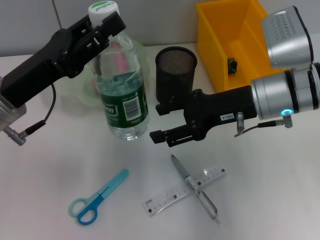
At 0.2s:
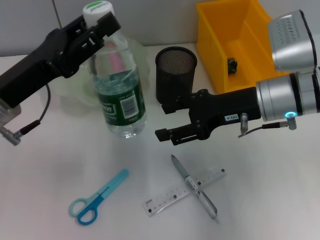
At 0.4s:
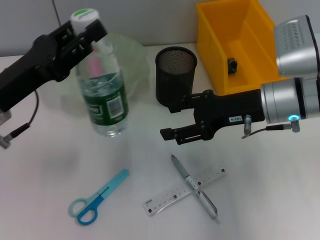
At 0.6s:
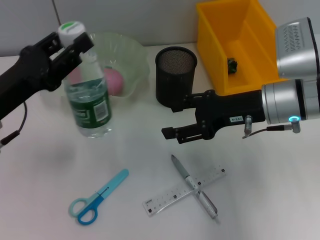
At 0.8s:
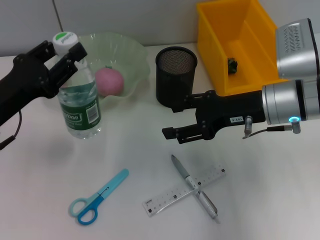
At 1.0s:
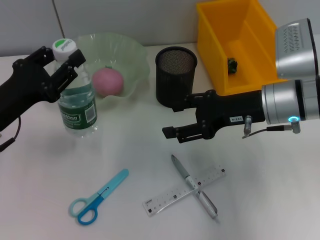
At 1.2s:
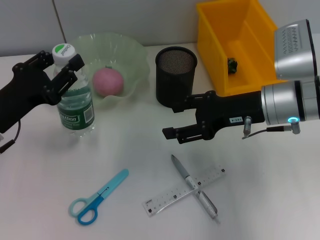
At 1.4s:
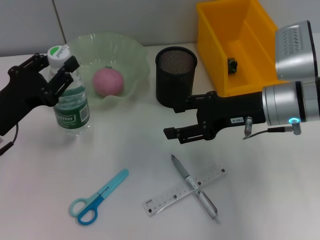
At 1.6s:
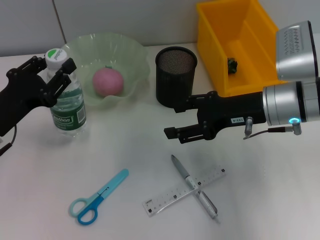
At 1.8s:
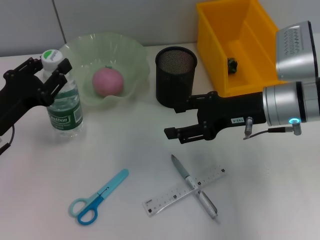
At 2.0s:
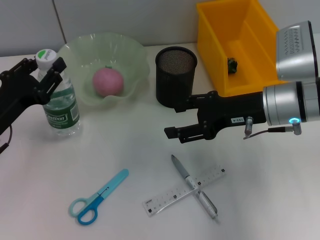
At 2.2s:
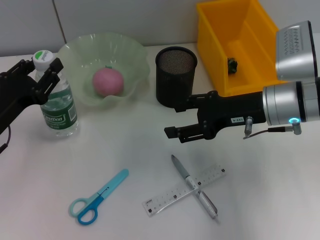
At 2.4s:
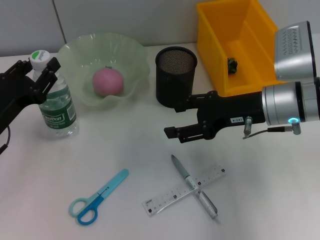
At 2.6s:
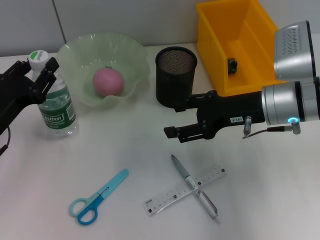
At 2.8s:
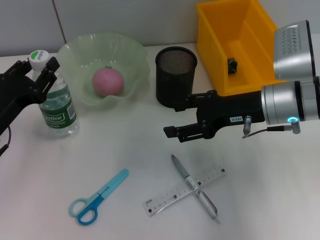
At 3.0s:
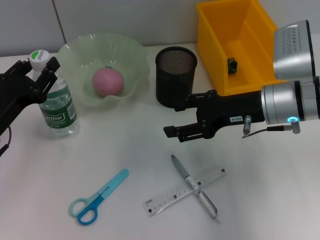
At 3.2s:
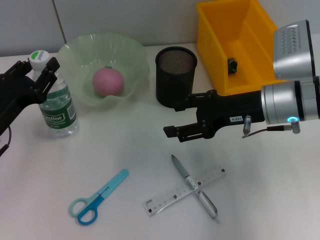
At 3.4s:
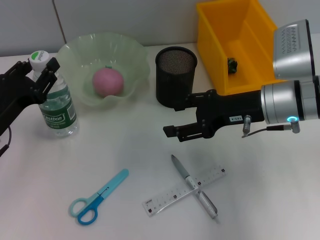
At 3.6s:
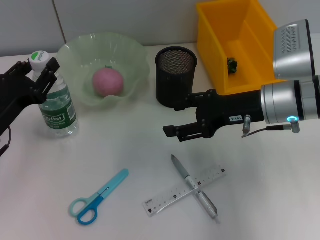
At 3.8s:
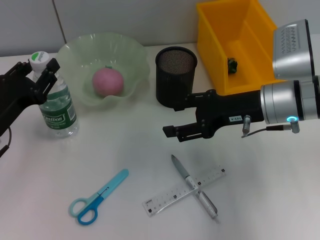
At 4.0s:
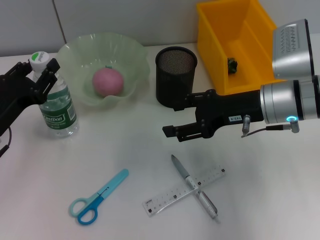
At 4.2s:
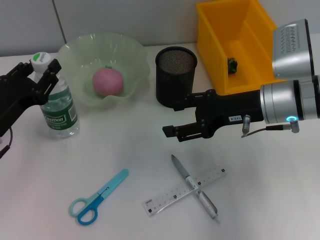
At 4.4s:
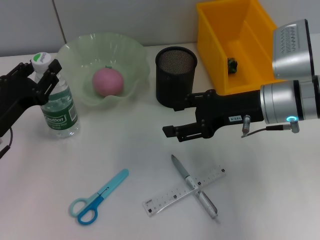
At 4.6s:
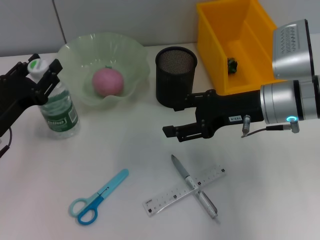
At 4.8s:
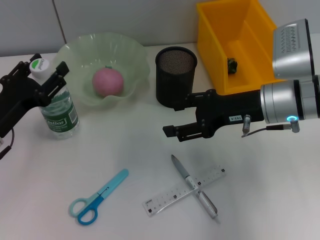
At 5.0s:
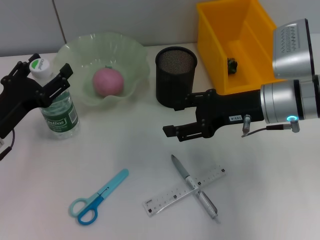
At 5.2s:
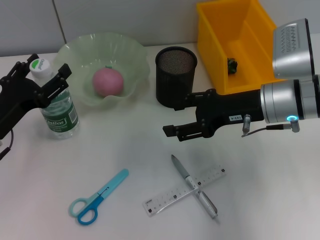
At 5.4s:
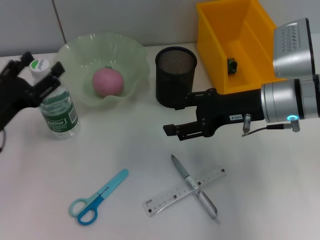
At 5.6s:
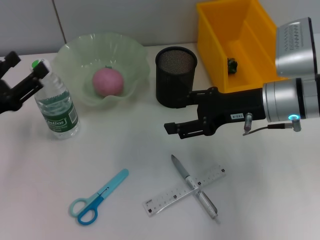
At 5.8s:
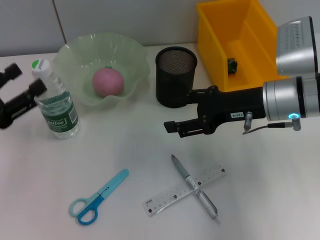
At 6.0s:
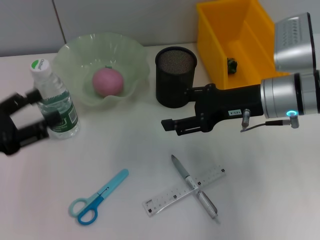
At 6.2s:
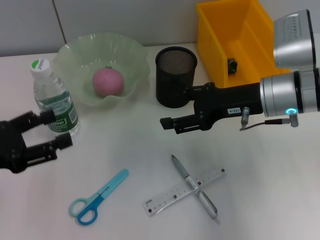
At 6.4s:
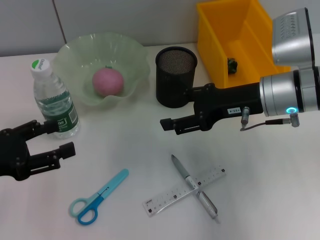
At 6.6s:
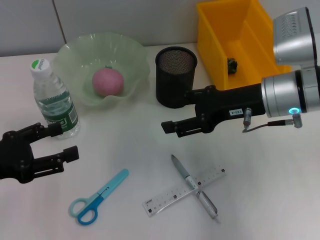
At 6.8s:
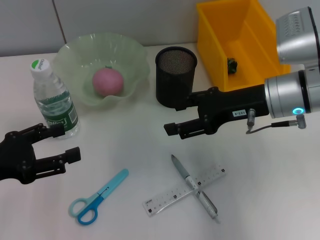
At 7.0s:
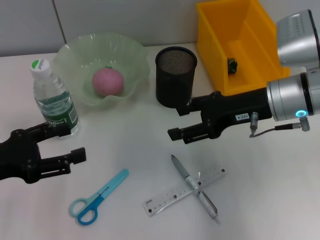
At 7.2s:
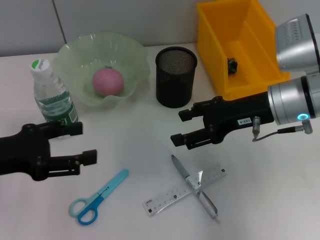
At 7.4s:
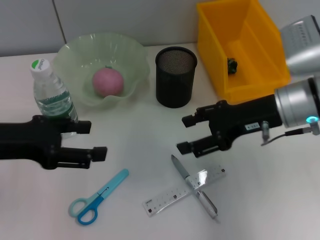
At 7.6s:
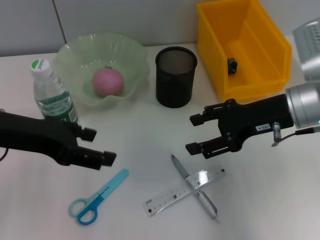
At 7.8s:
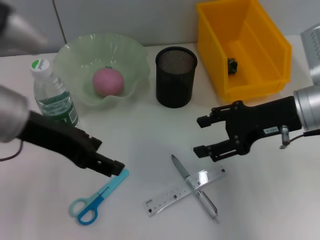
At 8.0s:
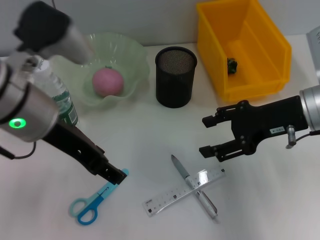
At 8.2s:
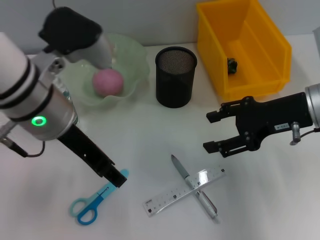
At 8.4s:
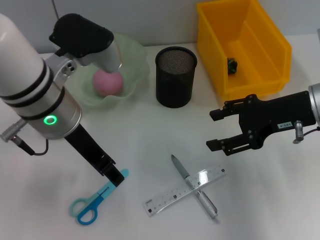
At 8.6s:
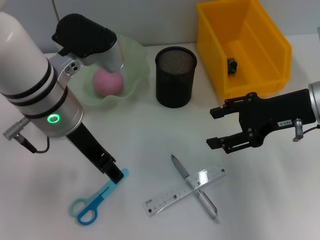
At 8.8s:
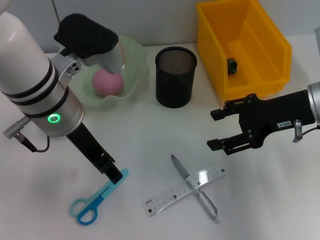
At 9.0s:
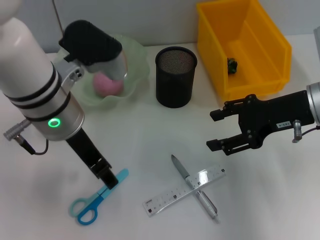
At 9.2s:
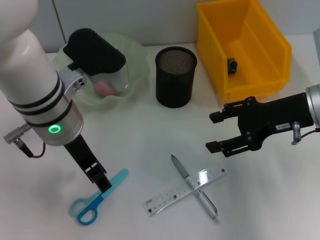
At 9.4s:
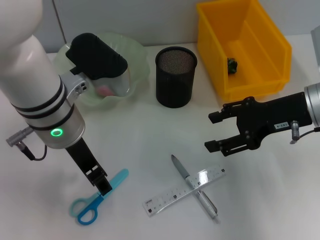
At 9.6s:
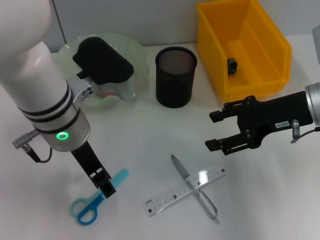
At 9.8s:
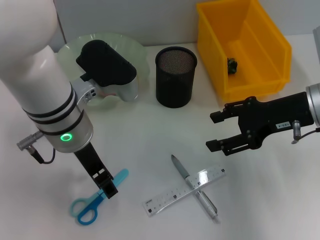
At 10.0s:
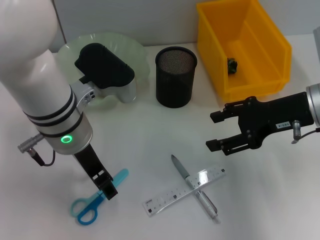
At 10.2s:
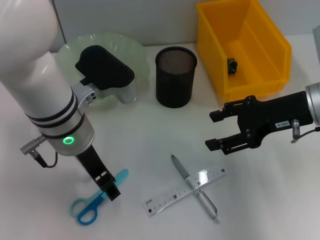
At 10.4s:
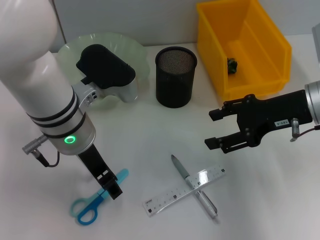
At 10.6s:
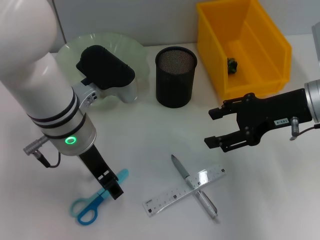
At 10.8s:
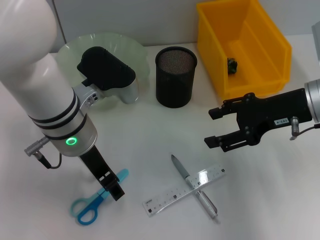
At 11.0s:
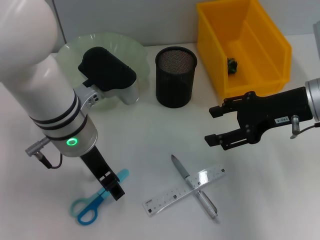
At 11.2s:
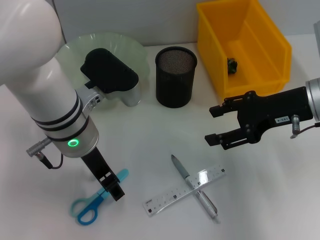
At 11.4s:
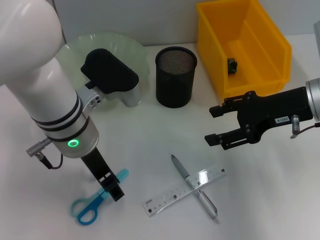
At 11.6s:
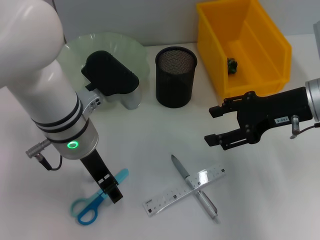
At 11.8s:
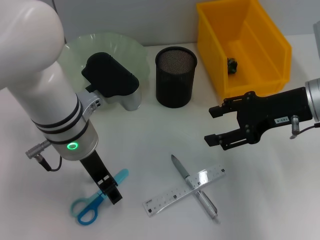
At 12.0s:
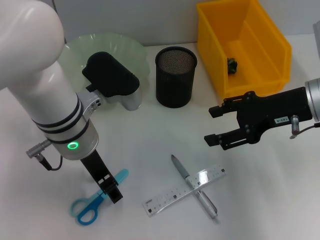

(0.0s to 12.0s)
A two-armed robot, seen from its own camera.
Step, 0.0s - 5.0s: Place the water bottle on the table with the left hand.
0.0s - 1.6s: The left gripper is displaced downward and to the left by roughly 10 cm.
1.6s - 3.0s: The grippers make only small movements.
3.0s - 4.4s: Neither gripper changes place.
4.4s - 6.0s: The left gripper is displaced backward and upward by roughly 5 cm, and opens its fingers.
6.0s - 7.6s: The left gripper is displaced upward and to the right by roughly 15 cm.
7.6s - 9.0s: The left gripper travels to the right by some 10 cm.
9.0s - 10.4s: There are only small adjustments of the grippers.
10.4s - 12.0s: Both grippers stay about where they are.

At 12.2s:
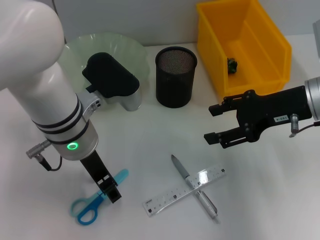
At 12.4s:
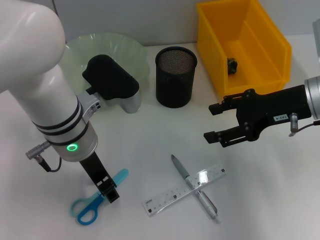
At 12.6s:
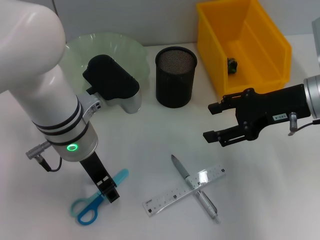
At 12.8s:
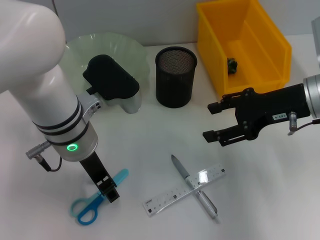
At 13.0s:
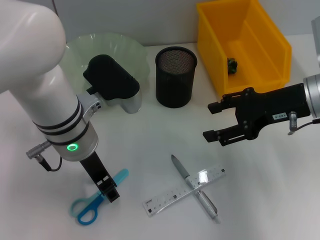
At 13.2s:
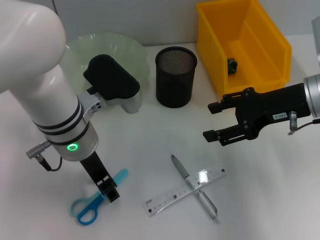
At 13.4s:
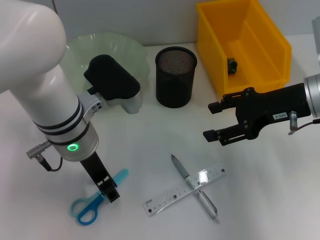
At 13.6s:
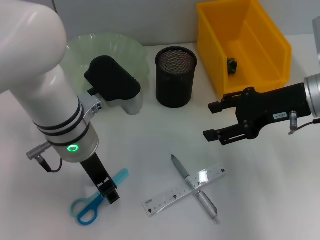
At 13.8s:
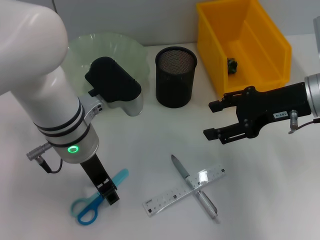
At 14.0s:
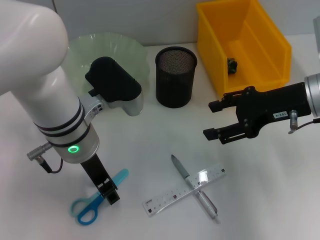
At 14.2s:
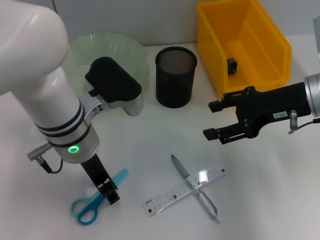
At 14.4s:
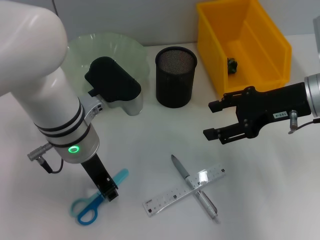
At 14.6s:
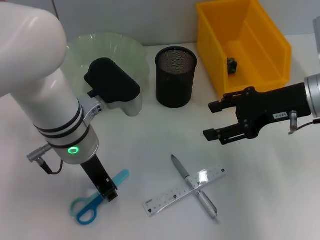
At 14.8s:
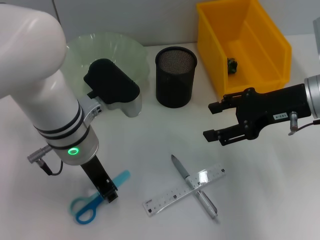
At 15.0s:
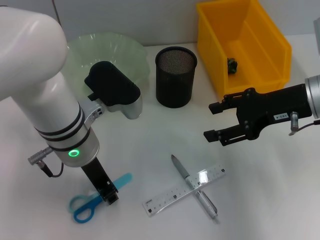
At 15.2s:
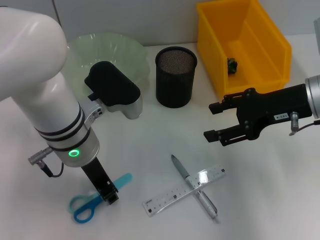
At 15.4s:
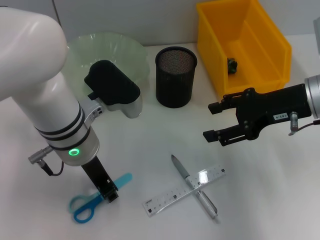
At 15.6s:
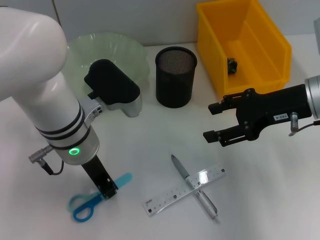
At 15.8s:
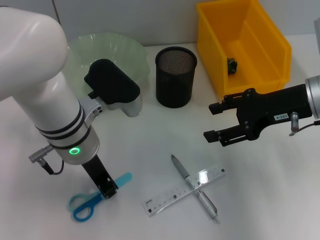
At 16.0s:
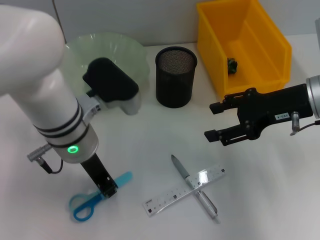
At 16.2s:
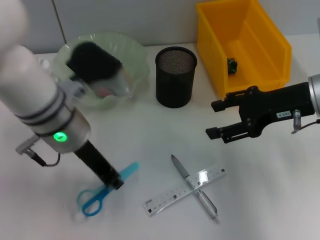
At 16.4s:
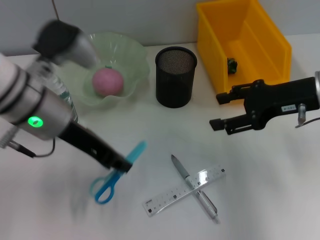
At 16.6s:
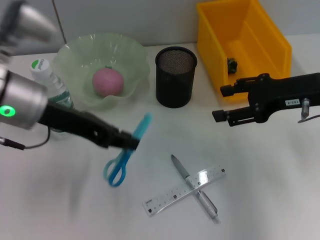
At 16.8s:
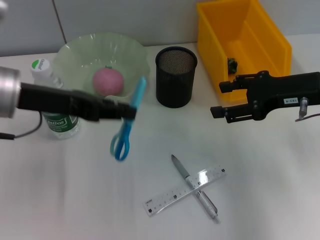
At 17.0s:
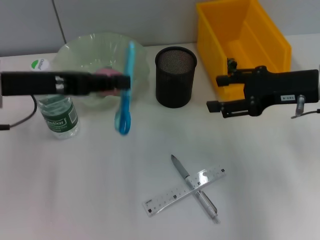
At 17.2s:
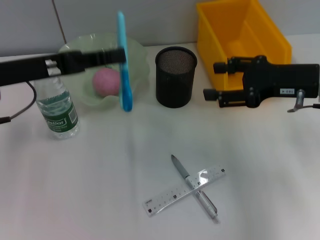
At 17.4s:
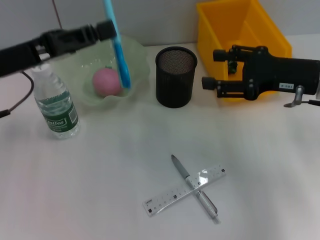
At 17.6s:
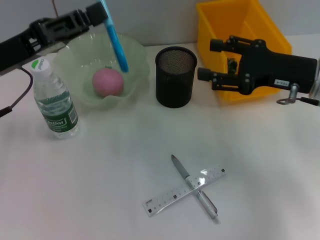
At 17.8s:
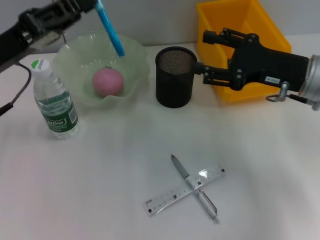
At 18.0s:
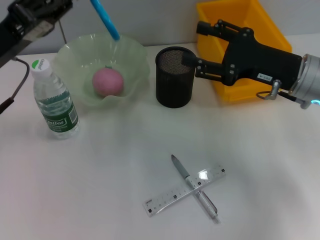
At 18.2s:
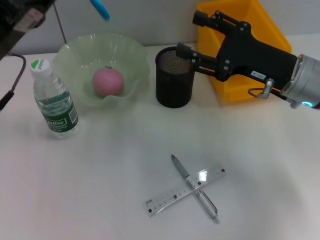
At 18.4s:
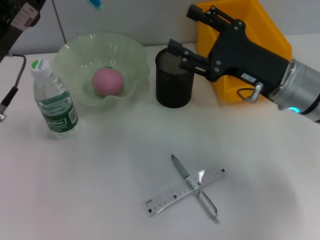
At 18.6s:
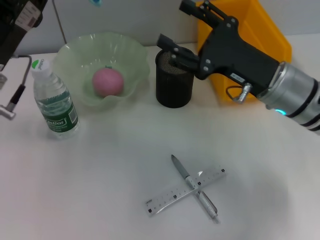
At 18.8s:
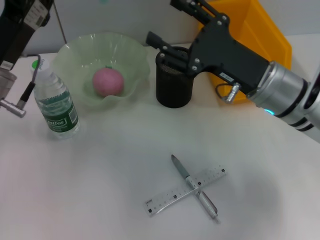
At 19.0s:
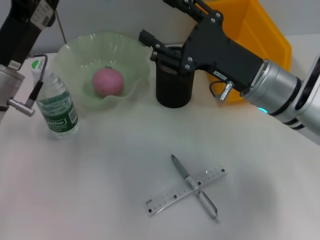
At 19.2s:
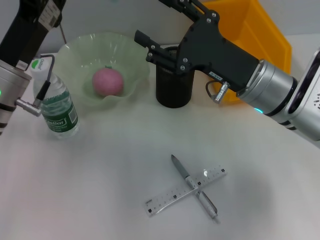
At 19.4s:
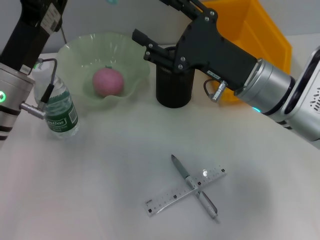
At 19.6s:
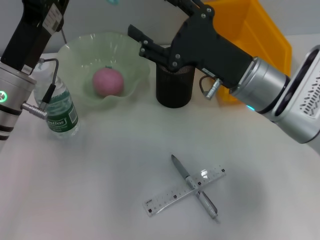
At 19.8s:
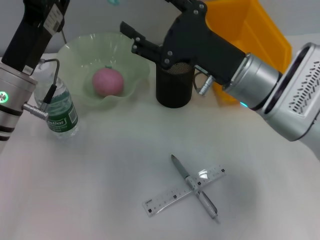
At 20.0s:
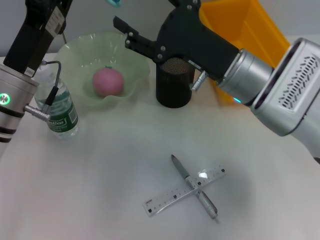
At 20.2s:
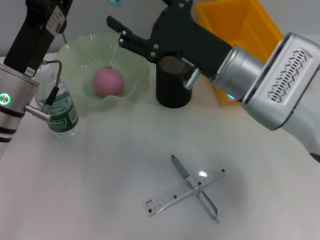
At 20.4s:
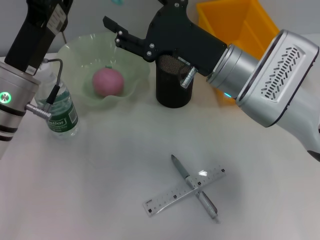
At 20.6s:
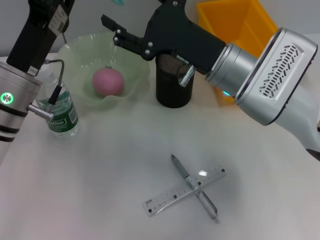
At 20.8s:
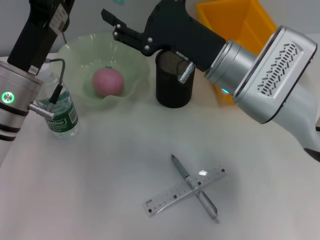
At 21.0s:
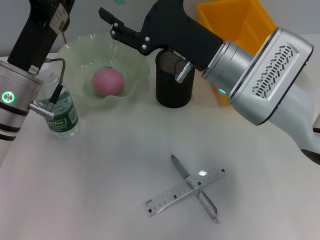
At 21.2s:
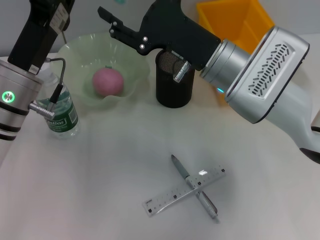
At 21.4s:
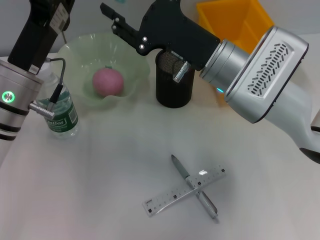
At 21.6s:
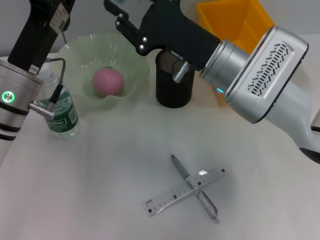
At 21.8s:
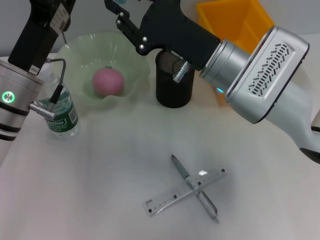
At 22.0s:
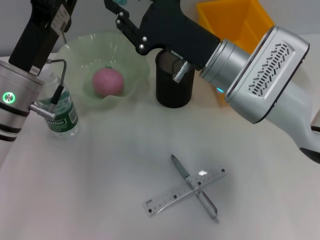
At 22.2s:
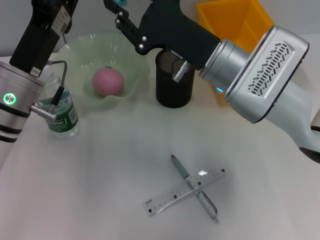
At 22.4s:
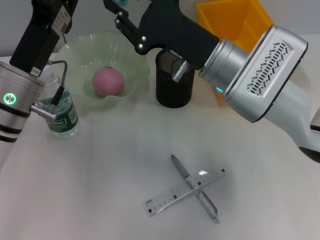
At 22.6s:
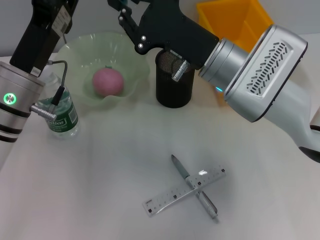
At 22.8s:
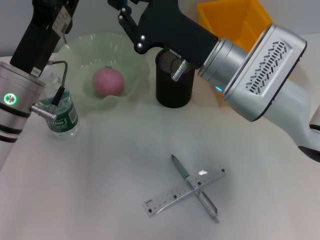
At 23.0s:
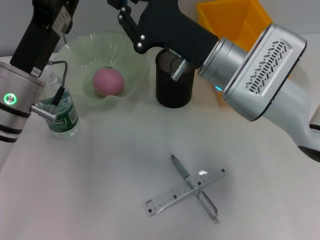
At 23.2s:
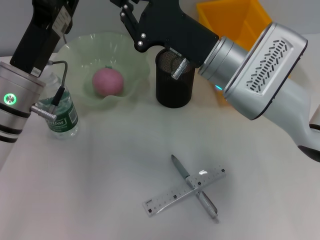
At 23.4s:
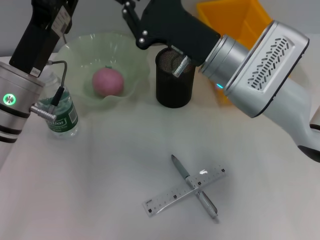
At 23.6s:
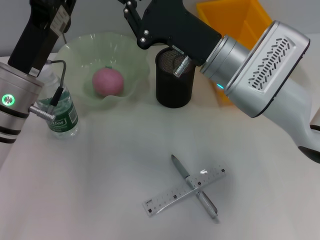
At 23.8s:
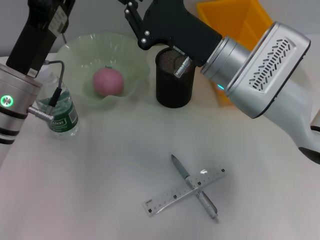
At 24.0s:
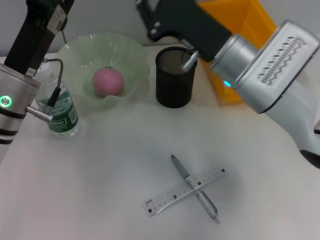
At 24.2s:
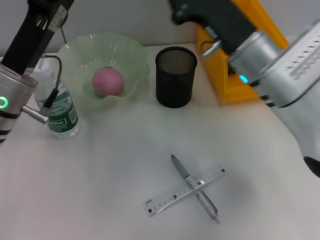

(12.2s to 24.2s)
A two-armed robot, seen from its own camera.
Step, 12.2s - 15.8s: Grab the blue scissors with the left hand.
Step, 16.0s - 24.2s: Pass the blue scissors from the left hand to the right hand.
12.2s - 15.2s: Both grippers stay put.
15.2s - 16.6s: The left gripper is displaced to the left and upward by roughly 10 cm.
16.6s - 18.2s: The left gripper heads to the left, covering roughly 5 cm. Meanwhile the right gripper changes place by some 5 cm.
18.2s - 19.8s: The left gripper shifts by approximately 5 cm; the right gripper heads to the left, covering about 10 cm.
19.8s - 21.2s: The grippers make only small movements.
21.2s - 22.6s: The right gripper closes up.
22.6s - 24.2s: The left gripper opens up.
